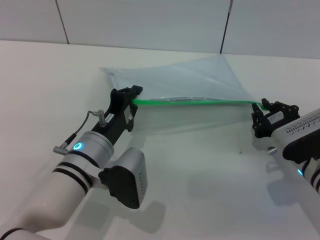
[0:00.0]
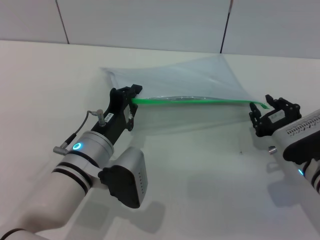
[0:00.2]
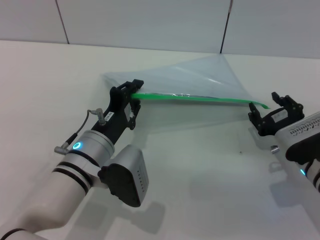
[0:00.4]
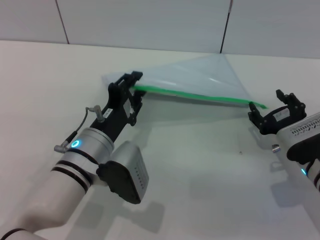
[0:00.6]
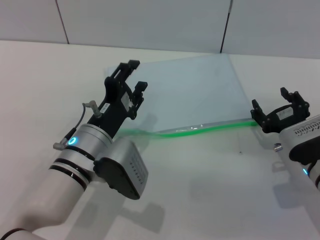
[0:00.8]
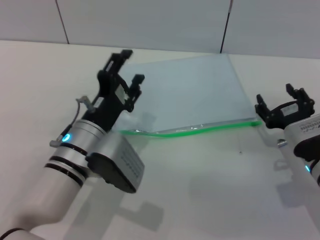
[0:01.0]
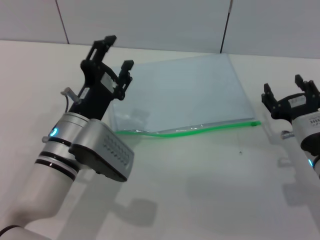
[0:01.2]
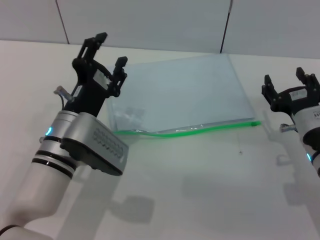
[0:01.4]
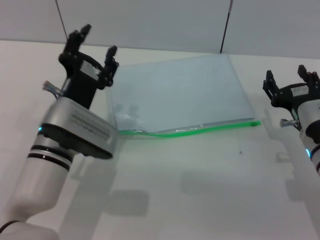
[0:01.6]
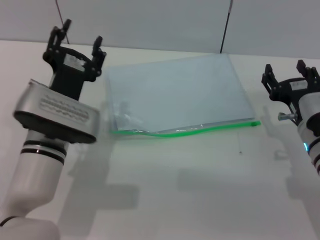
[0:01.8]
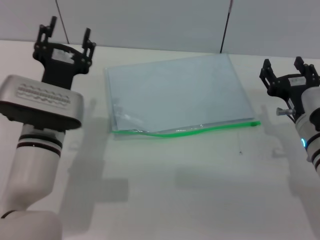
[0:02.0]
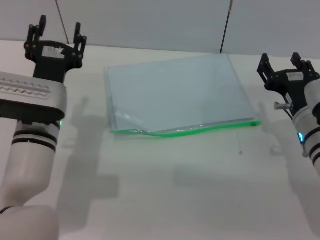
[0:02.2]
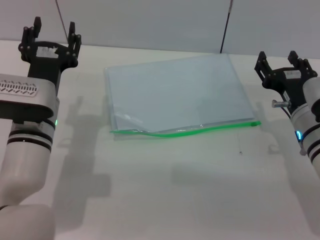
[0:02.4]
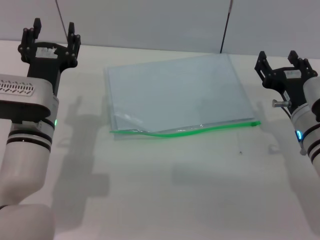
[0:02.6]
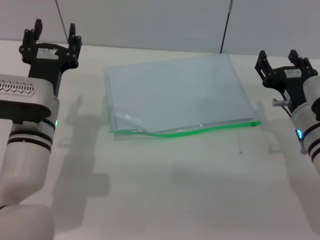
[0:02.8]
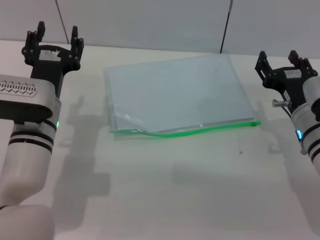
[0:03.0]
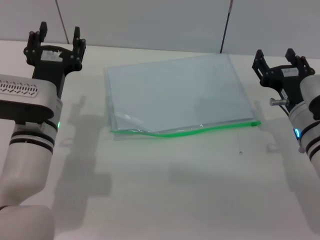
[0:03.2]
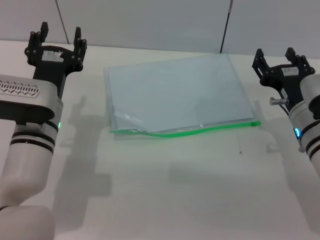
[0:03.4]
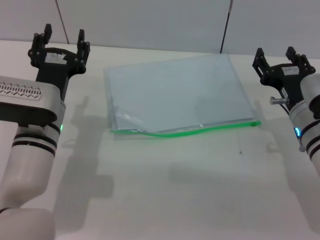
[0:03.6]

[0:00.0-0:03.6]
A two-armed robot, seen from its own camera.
Step, 0:00.6 to 0:01.8: Place the transparent plastic bag.
0:00.0 to 0:01.8: The right gripper opens. Meanwhile the left gripper changes place by approximately 5 cm, and opens up.
